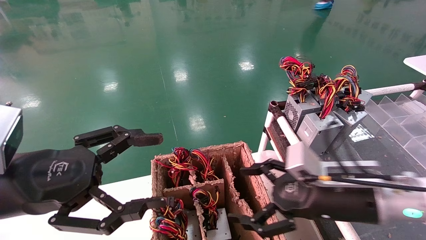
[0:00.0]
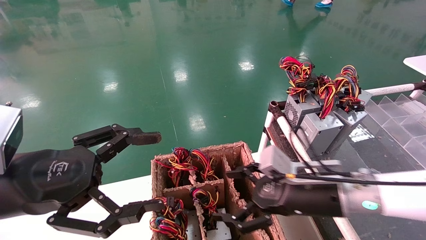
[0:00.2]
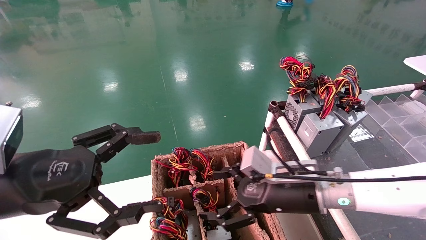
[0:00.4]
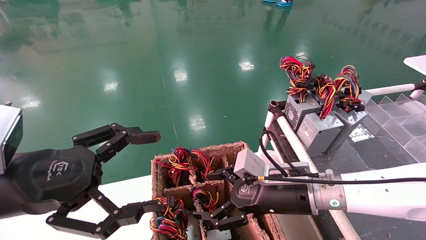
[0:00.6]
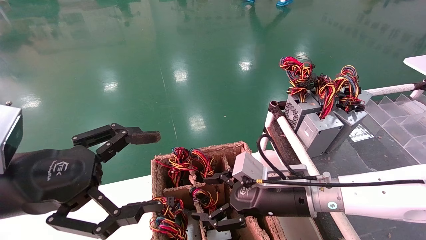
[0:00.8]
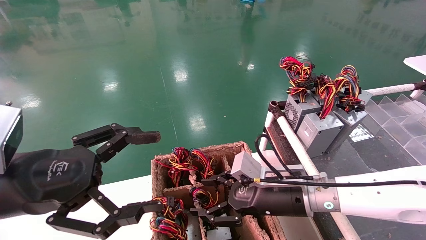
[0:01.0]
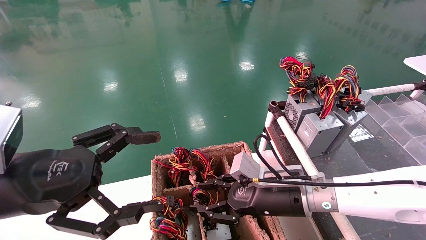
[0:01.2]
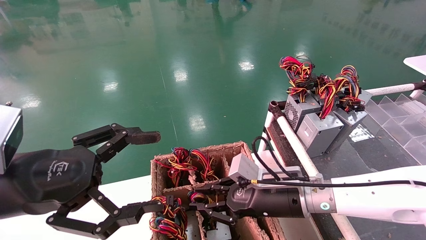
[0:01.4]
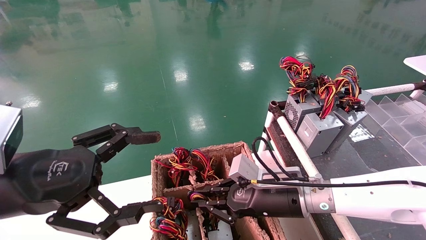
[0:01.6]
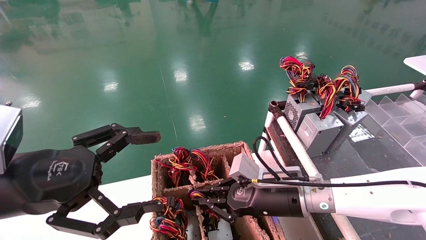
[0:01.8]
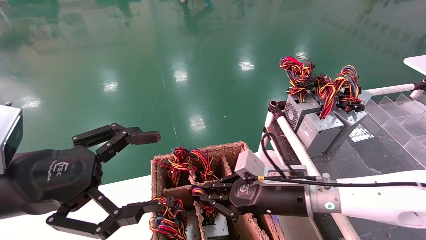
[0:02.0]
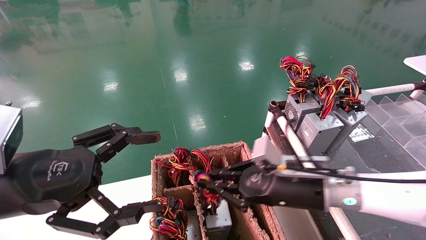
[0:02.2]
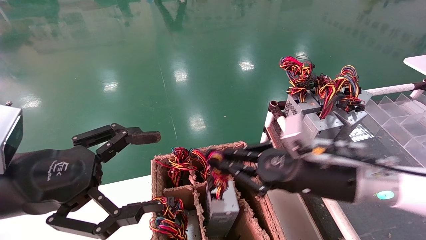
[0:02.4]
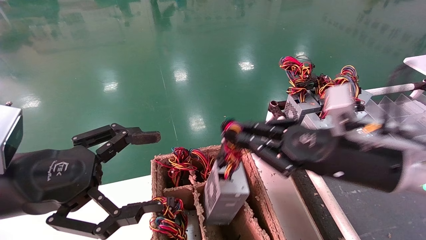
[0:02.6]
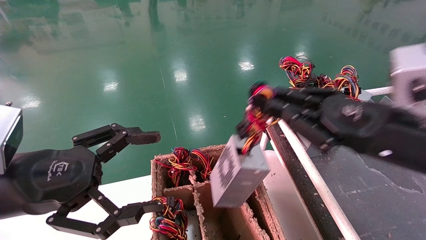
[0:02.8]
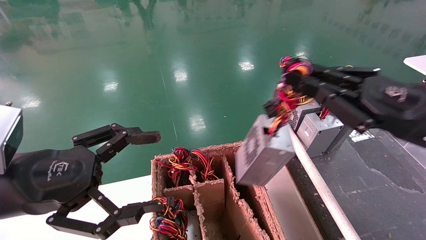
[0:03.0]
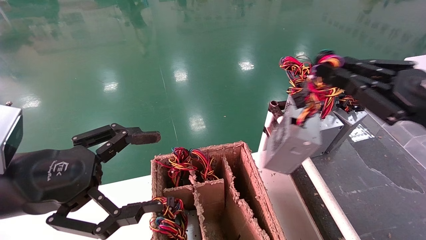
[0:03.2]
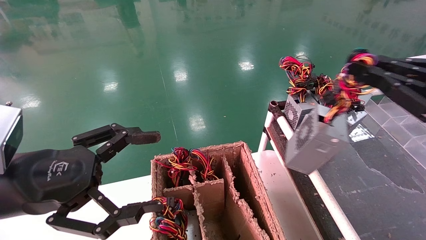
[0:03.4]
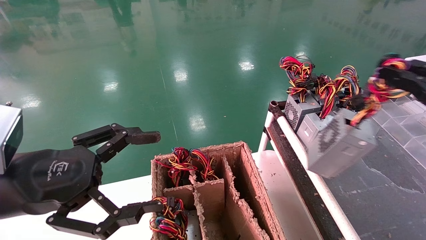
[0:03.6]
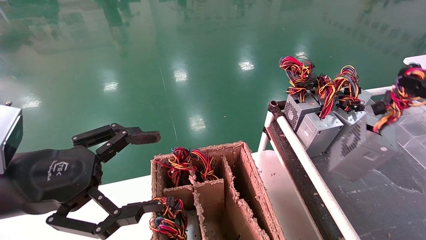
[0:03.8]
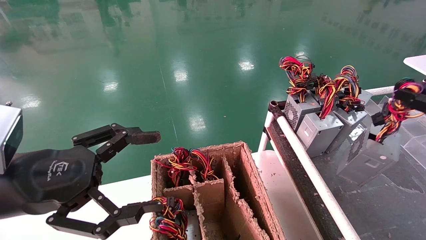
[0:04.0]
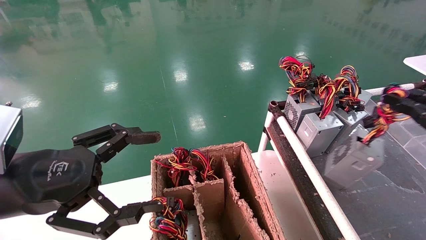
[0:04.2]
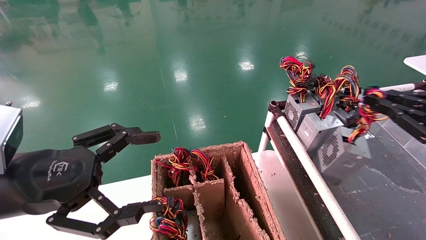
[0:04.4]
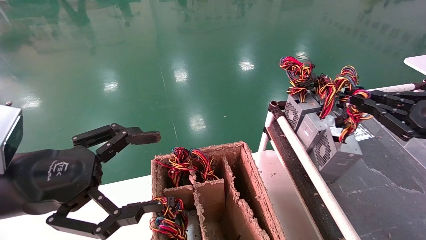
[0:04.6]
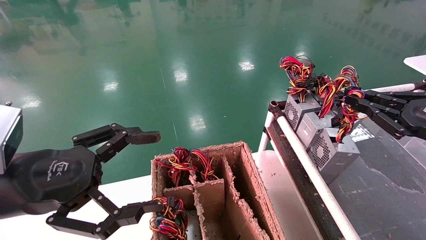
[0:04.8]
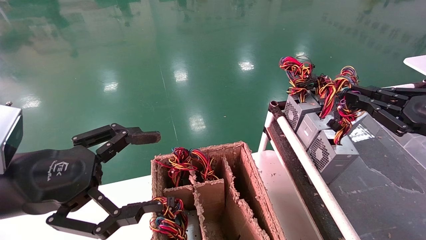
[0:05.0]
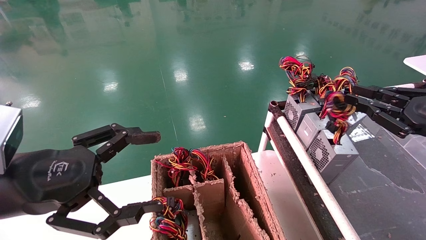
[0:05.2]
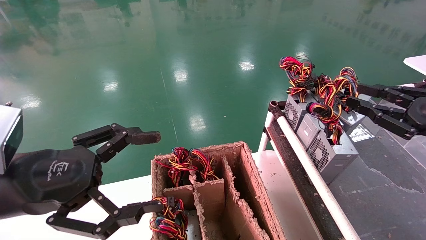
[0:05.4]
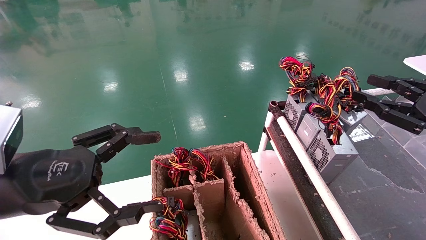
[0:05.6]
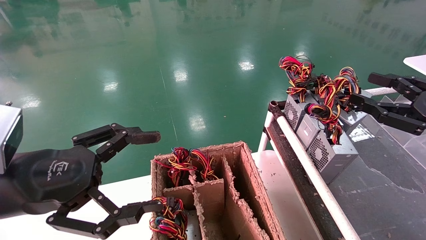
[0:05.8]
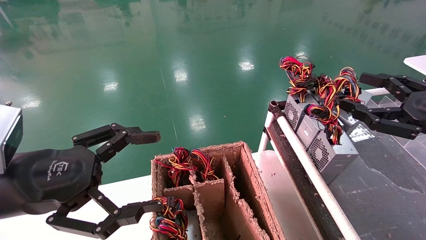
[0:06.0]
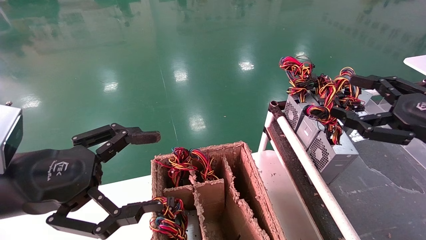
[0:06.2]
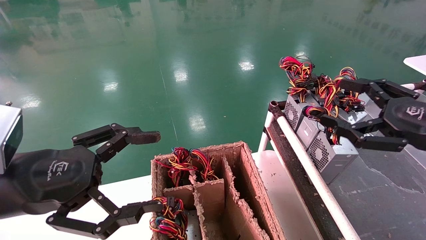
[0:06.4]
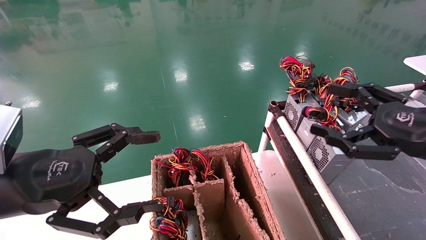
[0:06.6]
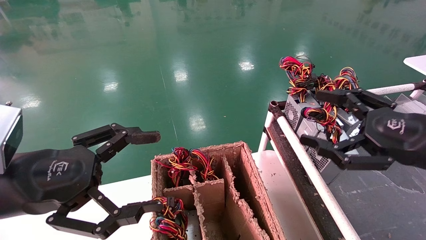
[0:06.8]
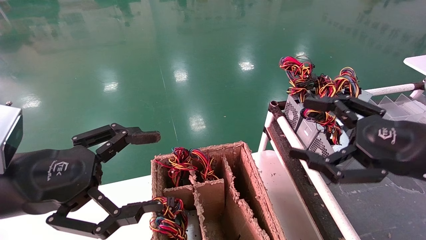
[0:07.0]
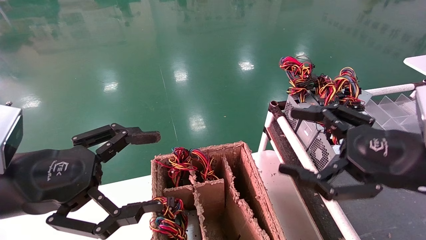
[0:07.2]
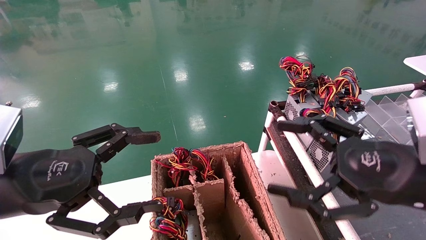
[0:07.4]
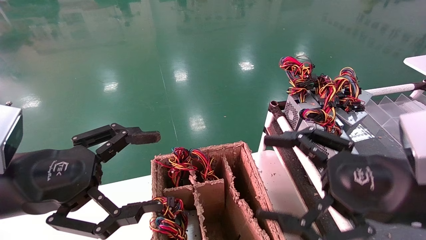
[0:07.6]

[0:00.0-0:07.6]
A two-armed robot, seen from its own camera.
Step, 0:01.8 to 0:05.4: Place the power supply on the operating table.
0:00.0 to 0:01.6: The right gripper travels to the left, forward and downward by about 10 cm, and closes.
0:01.6 to 0:03.0: The right gripper moves to the right, upward and backward, roughly 25 cm.
0:03.0 to 0:04.6: The right gripper shifts about 10 cm to the right.
0:04.6 to 0:06.0: The right gripper opens up.
0:06.0 to 0:07.6: The right gripper shifts roughly 15 cm to the left and backward.
